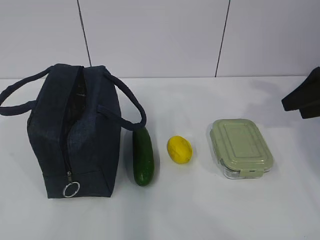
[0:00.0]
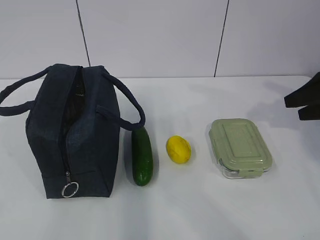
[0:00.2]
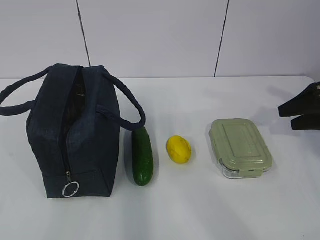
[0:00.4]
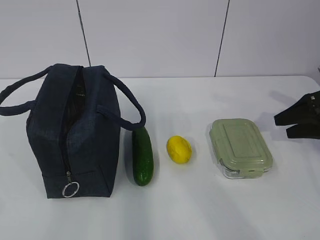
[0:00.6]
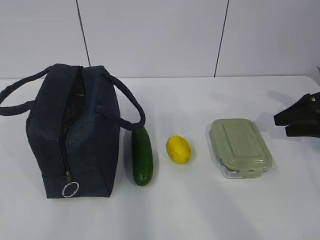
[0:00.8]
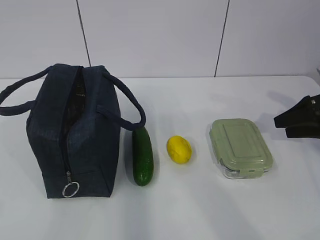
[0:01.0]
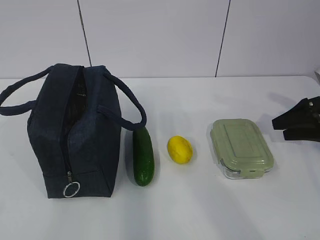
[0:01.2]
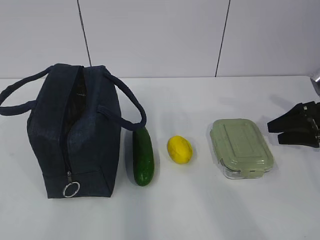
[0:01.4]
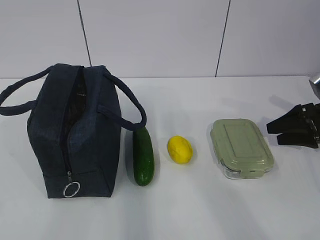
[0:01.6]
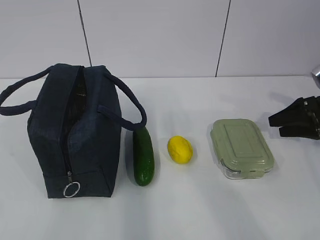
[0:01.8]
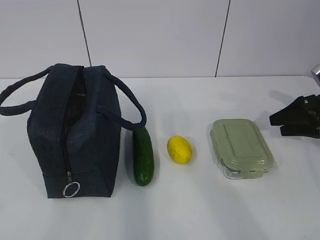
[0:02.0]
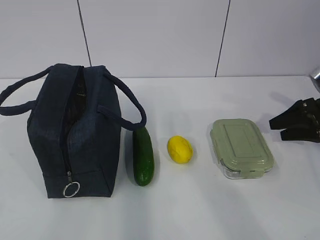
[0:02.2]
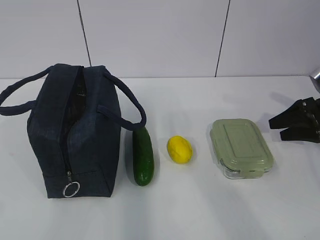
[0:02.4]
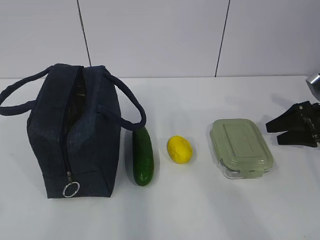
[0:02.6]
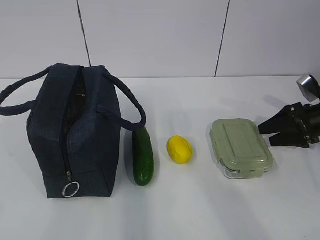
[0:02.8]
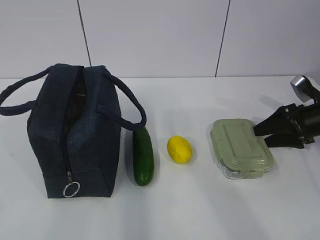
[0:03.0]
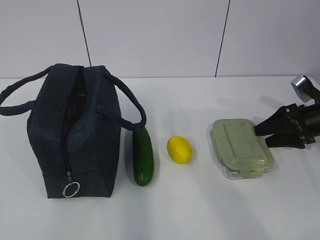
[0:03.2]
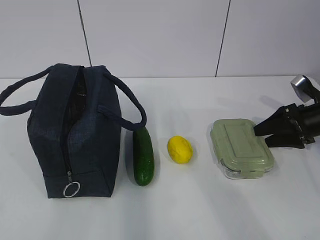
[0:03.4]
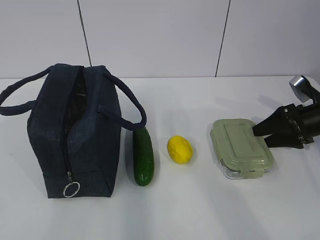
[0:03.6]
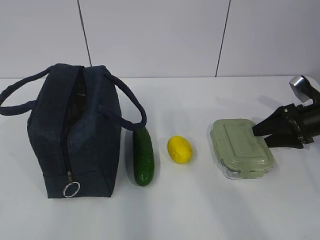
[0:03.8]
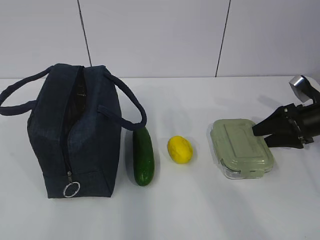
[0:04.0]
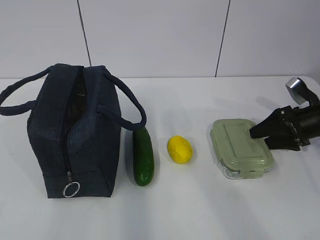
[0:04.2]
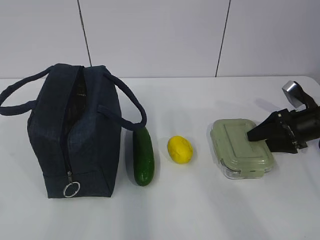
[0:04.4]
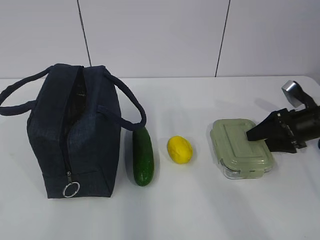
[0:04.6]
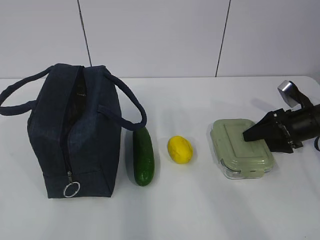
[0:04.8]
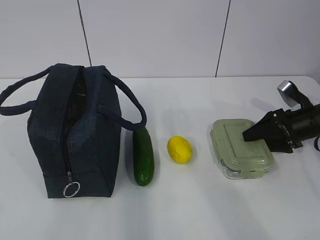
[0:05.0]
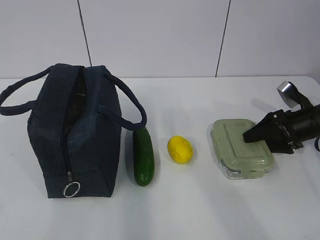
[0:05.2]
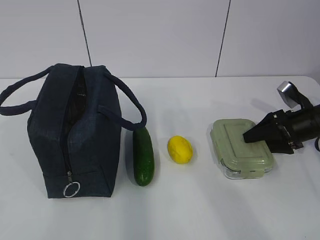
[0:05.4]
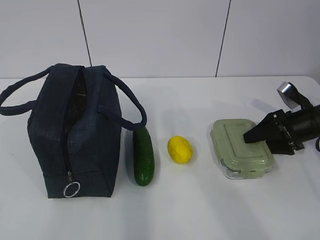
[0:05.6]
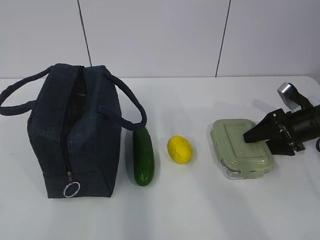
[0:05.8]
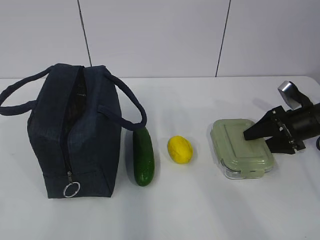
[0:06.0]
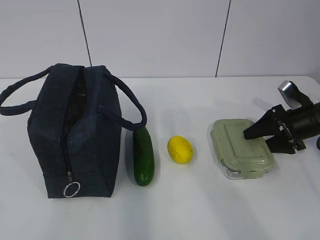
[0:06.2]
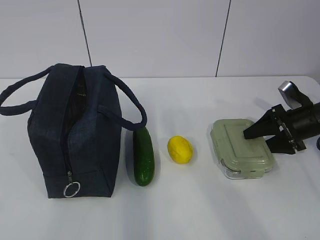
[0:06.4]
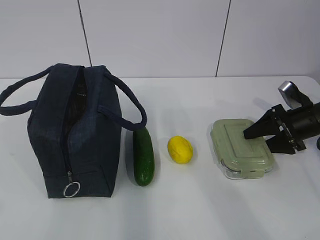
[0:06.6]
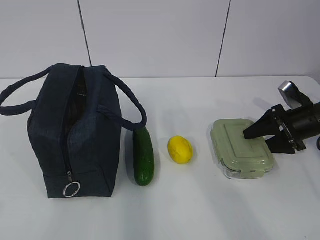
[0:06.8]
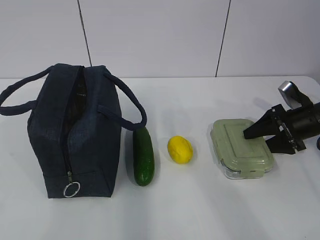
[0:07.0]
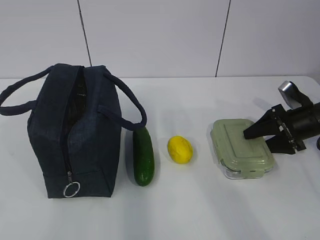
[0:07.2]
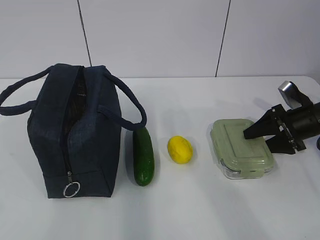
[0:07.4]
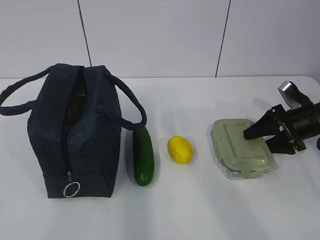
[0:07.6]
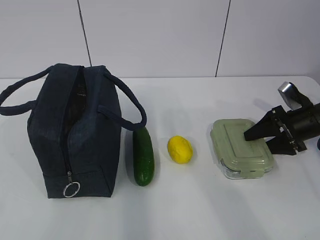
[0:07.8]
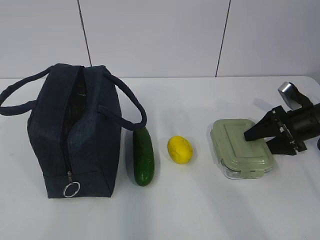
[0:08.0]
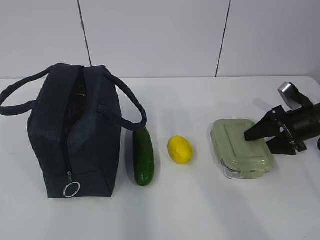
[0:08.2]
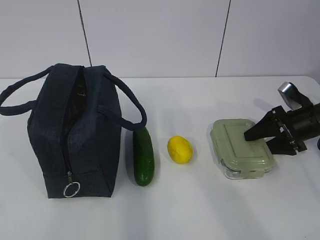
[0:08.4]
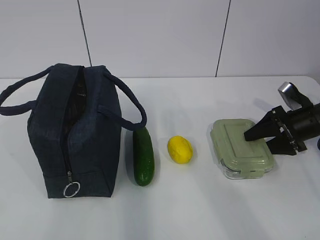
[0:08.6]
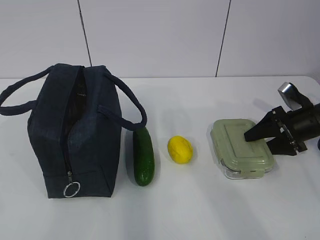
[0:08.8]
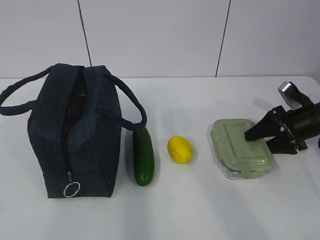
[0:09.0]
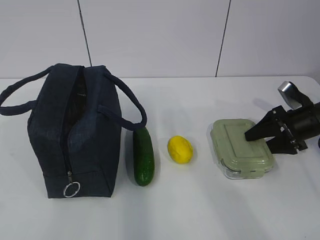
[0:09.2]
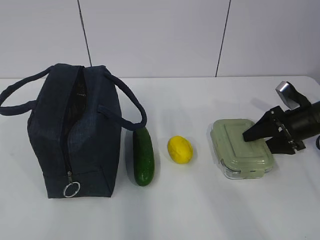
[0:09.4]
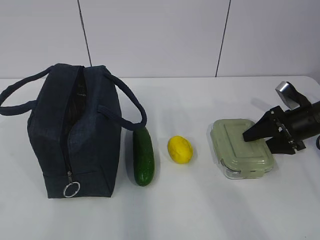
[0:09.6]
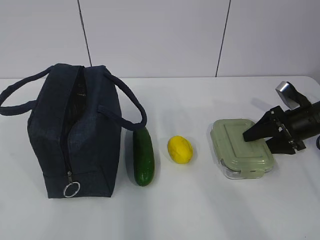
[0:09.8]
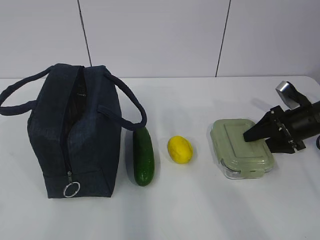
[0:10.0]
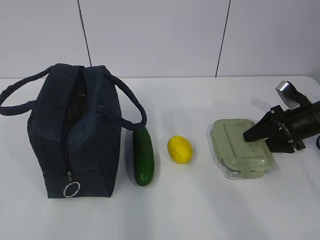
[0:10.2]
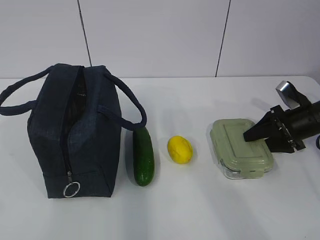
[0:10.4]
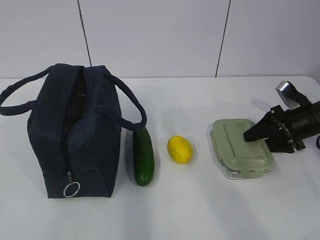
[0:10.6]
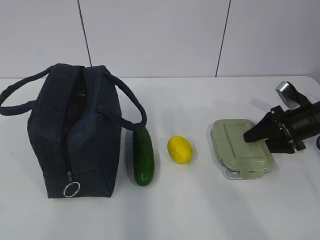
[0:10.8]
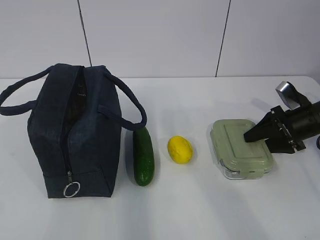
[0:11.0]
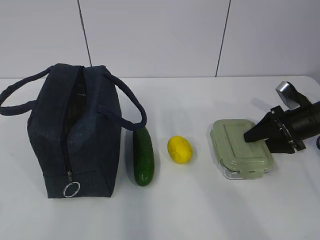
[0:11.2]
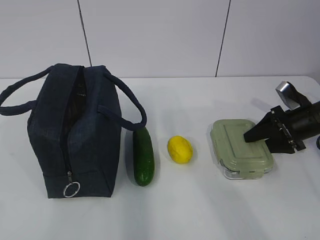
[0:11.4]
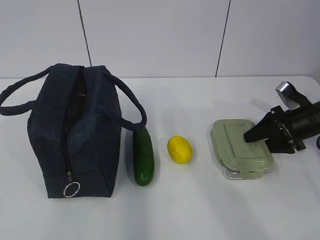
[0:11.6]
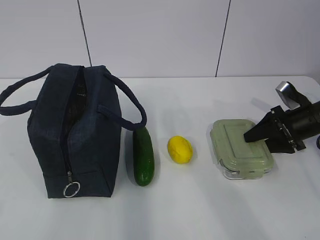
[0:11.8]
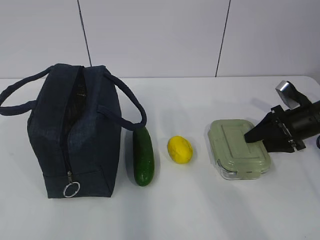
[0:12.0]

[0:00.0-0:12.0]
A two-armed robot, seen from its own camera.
0:00.0 to 0:01.6: The right gripper goes roughly 15 cm downward.
0:01.6 to 0:06.0: The grippers move only a little.
0:06.0 to 0:12.0: Both grippers stay put.

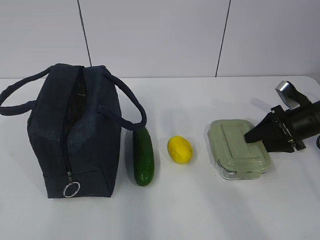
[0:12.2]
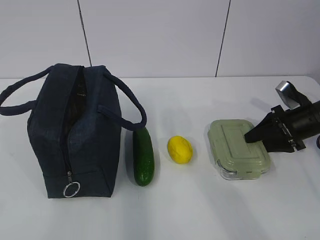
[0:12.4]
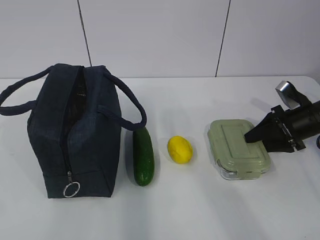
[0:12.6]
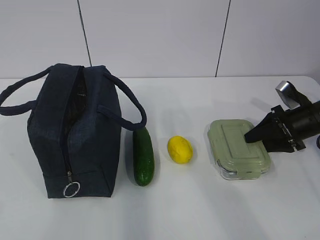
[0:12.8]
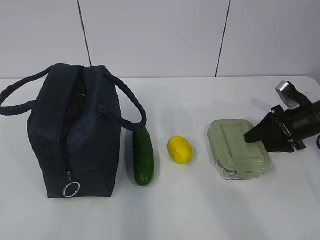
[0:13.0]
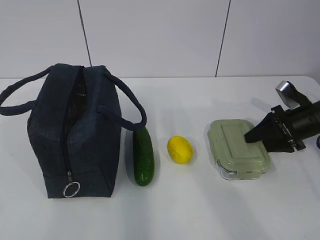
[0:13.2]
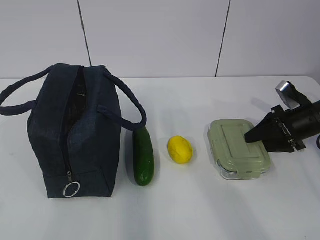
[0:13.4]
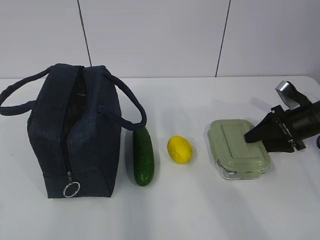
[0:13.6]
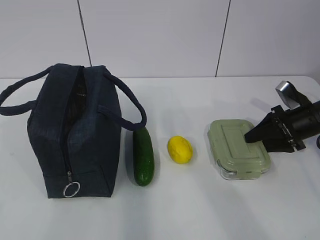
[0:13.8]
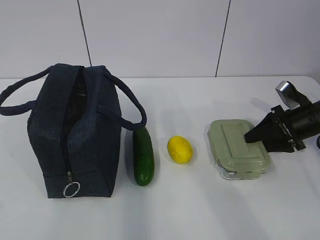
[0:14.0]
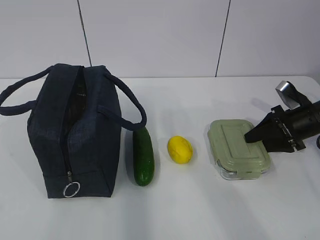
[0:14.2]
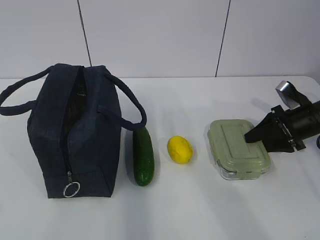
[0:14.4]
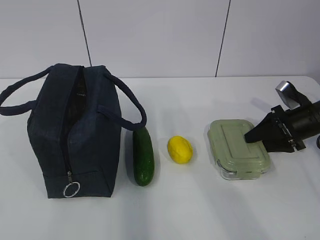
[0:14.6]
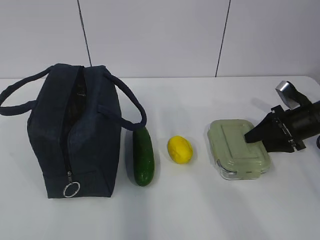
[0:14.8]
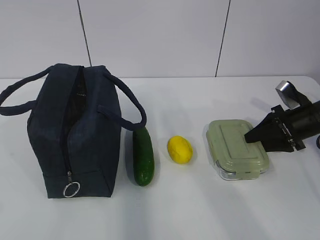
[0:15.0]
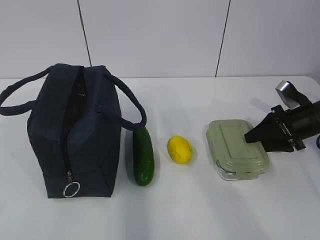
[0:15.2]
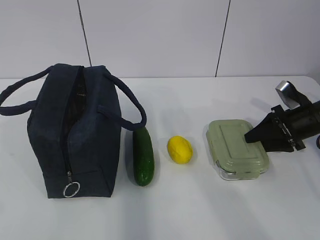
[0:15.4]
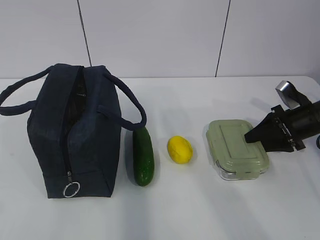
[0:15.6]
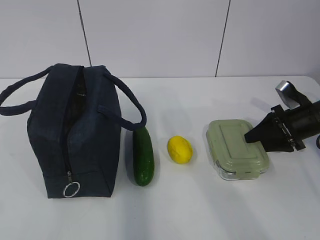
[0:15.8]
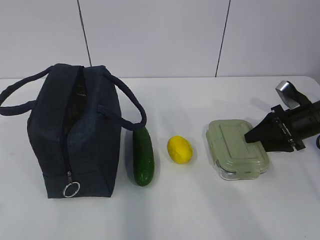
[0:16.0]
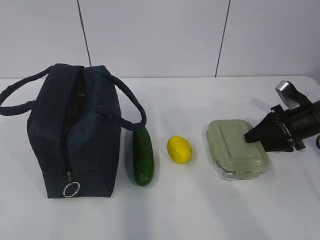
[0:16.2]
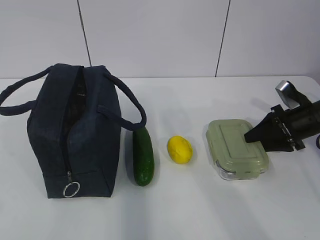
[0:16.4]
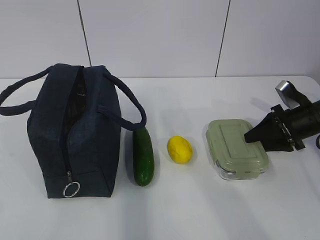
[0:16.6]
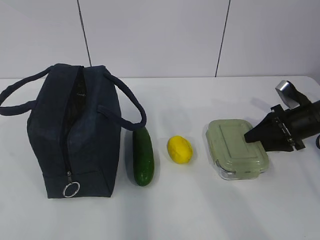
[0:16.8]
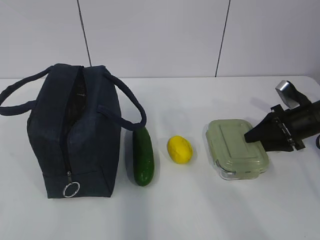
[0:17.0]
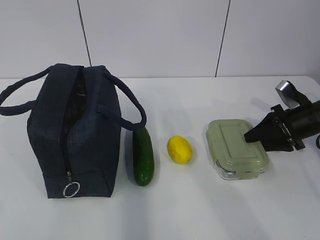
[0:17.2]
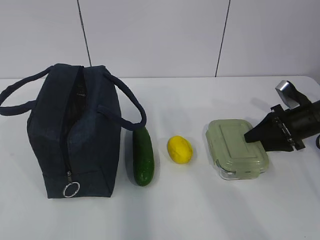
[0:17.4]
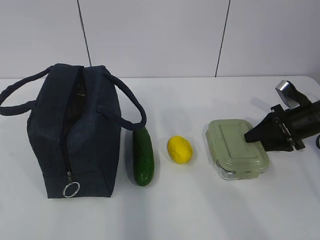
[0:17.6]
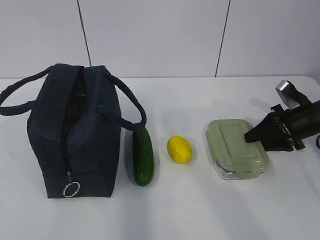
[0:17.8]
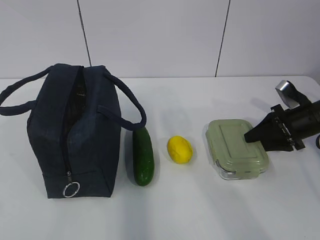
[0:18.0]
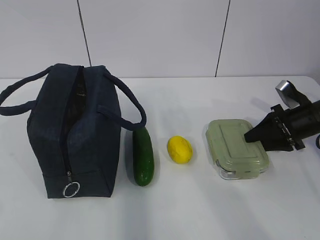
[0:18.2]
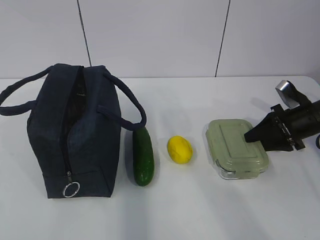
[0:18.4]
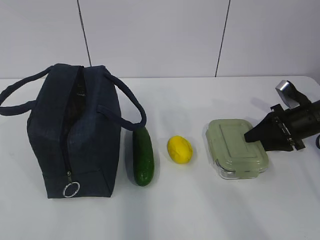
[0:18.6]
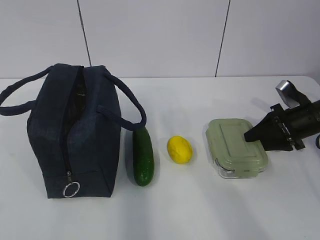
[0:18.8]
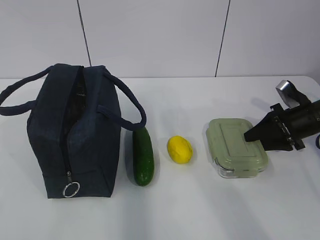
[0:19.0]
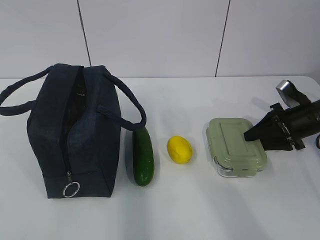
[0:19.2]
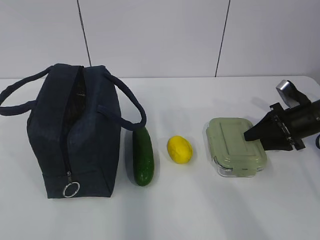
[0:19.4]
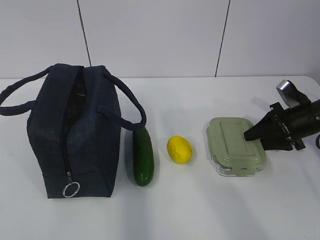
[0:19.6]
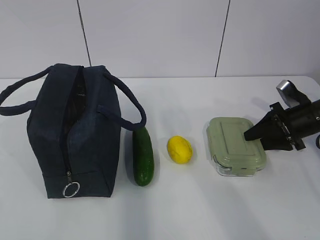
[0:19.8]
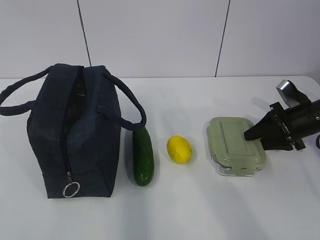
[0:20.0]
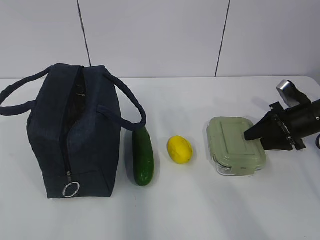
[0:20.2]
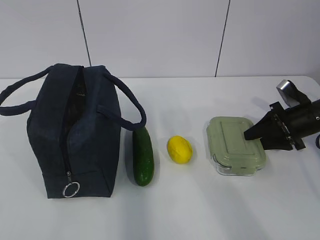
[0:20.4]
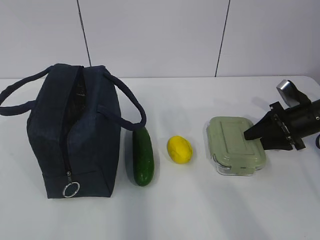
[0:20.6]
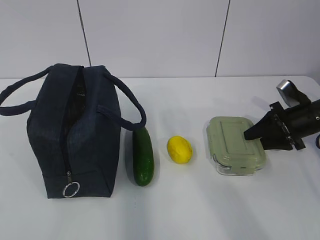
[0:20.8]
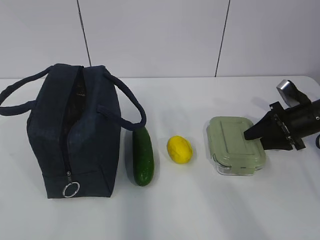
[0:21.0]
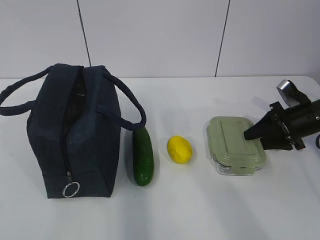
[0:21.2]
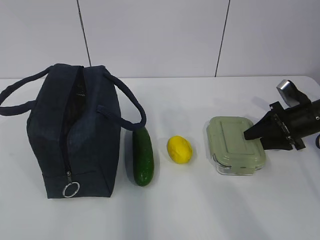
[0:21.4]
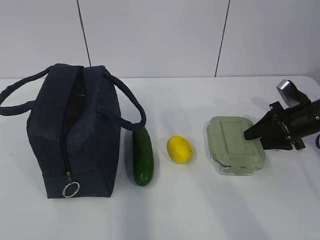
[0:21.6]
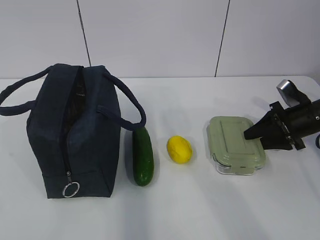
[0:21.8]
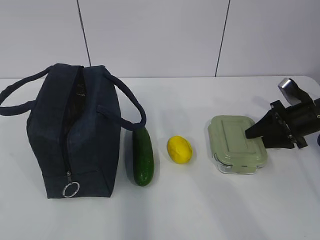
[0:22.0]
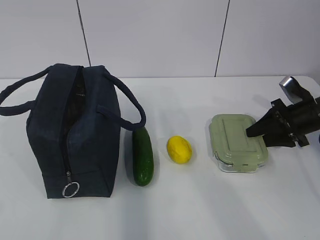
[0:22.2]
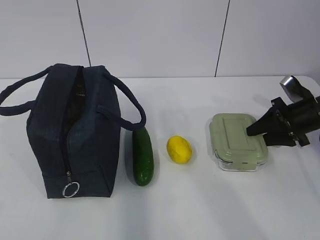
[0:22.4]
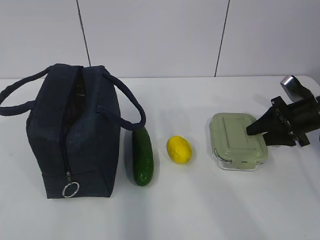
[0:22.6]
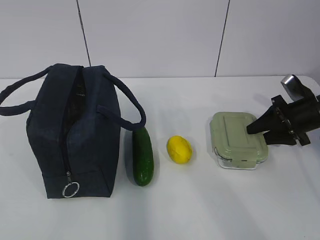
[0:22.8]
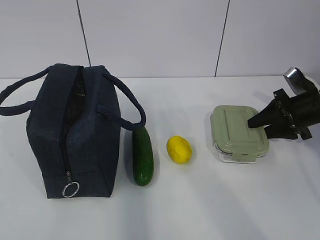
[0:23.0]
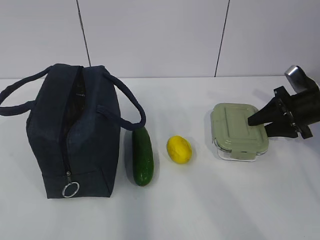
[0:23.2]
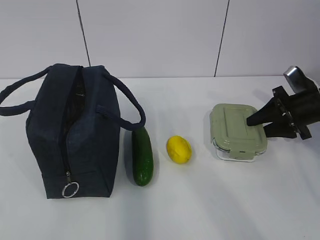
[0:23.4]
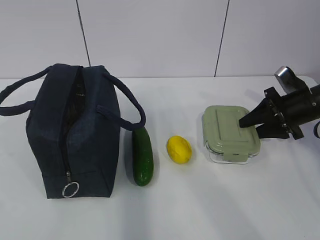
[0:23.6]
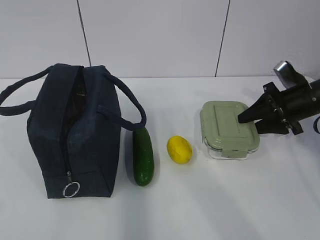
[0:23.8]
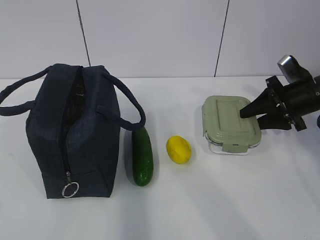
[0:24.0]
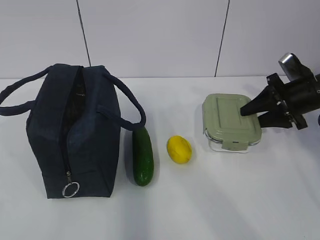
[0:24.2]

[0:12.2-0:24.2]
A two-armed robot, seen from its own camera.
0:12.2 to 0:21.2: Neither gripper changes place.
0:21.2 to 0:22.6: Neither gripper changes place.
0:22.6 to 0:24.2: The right gripper shifts by approximately 5 cm.
